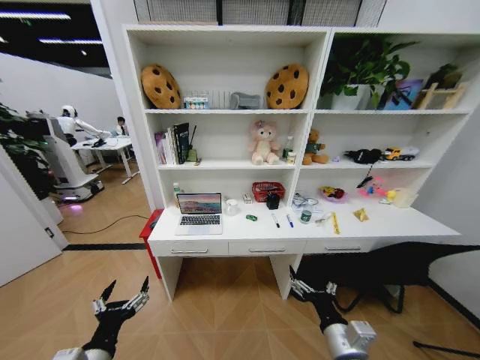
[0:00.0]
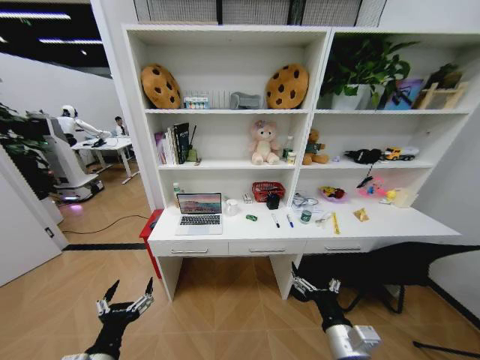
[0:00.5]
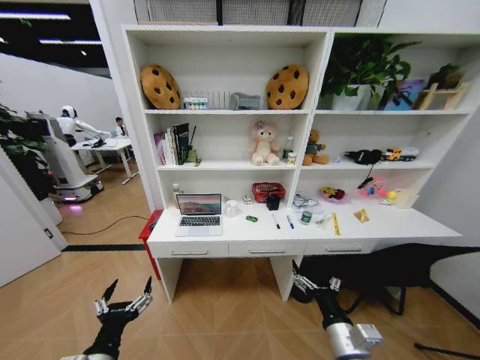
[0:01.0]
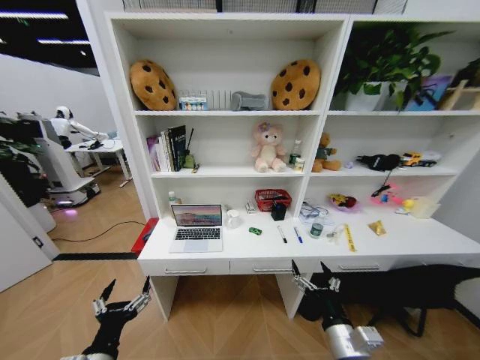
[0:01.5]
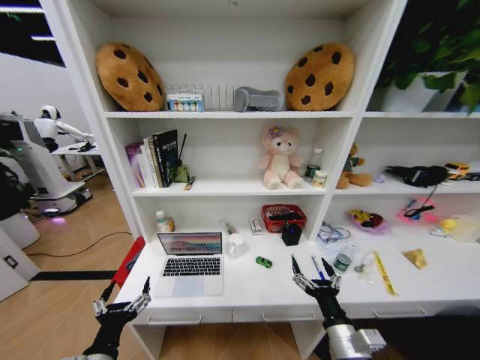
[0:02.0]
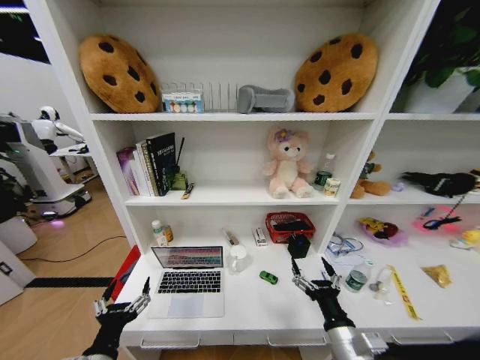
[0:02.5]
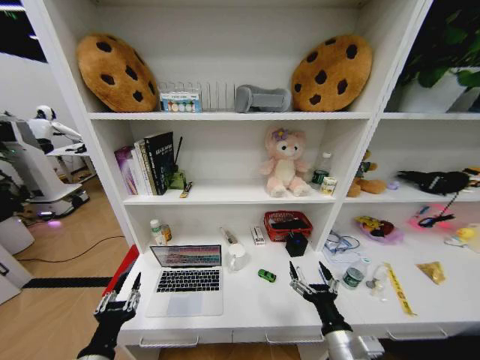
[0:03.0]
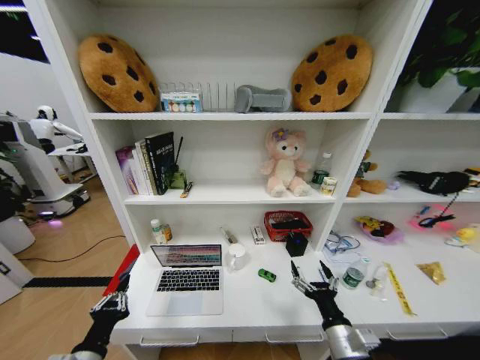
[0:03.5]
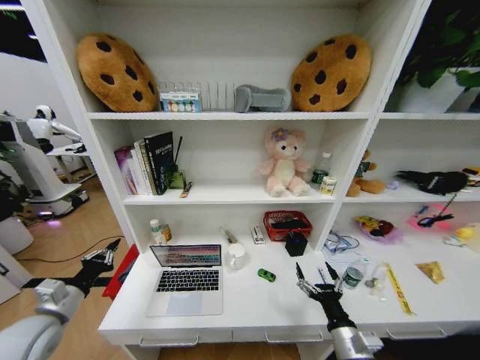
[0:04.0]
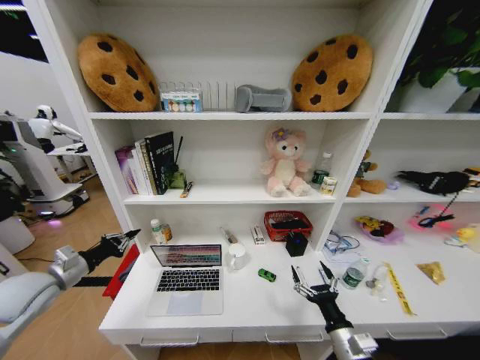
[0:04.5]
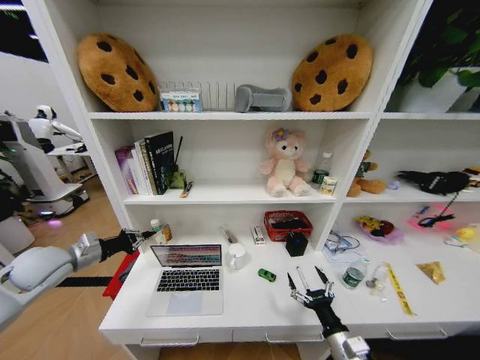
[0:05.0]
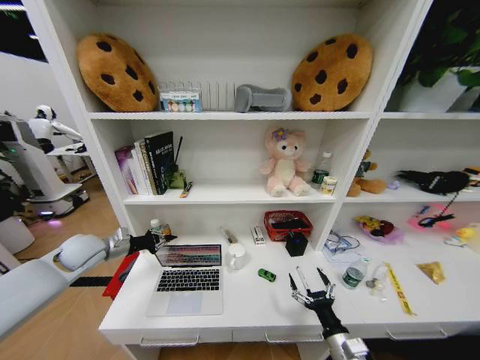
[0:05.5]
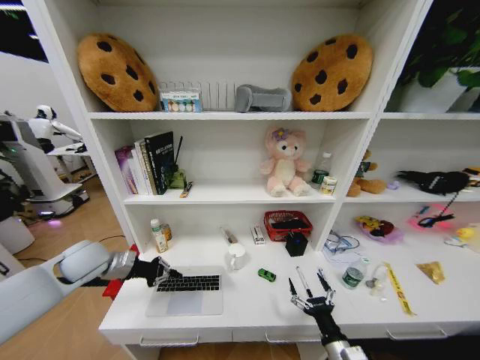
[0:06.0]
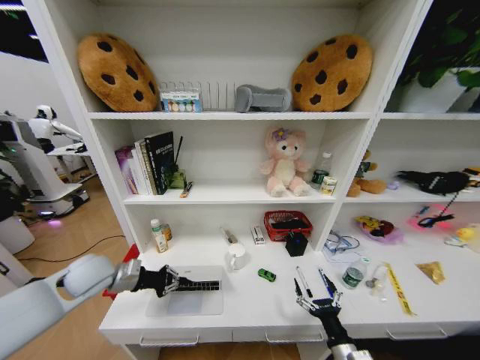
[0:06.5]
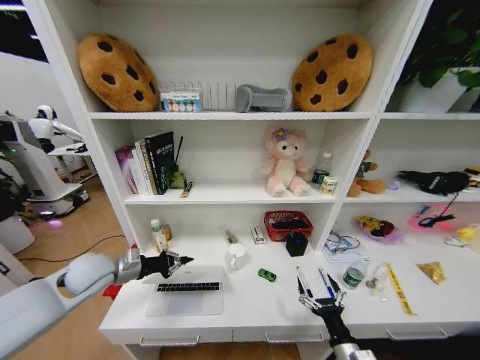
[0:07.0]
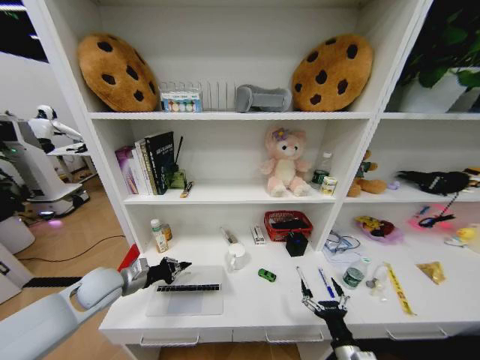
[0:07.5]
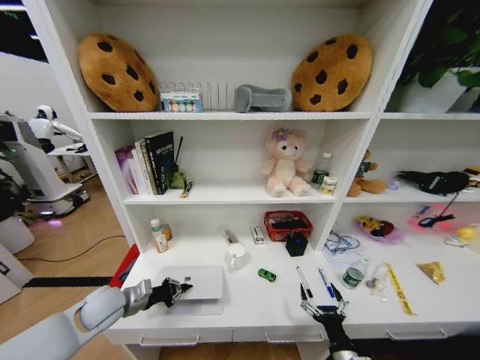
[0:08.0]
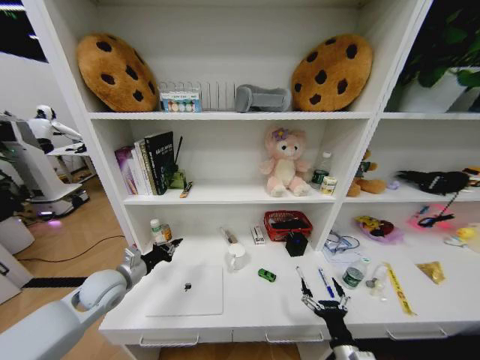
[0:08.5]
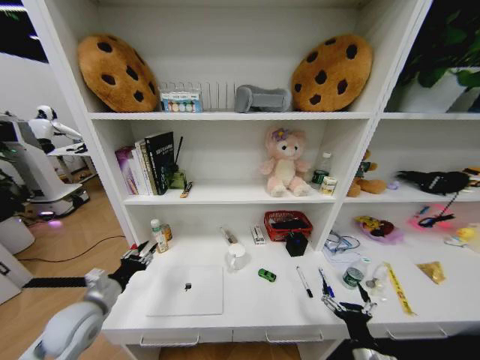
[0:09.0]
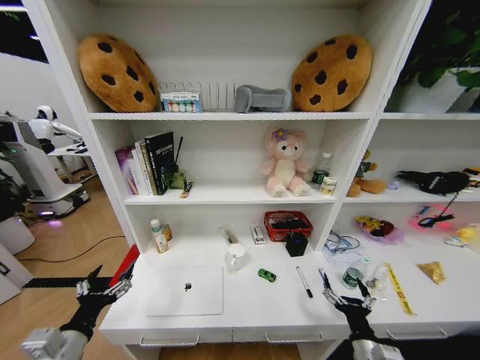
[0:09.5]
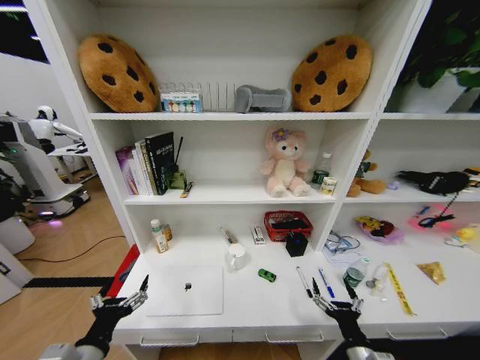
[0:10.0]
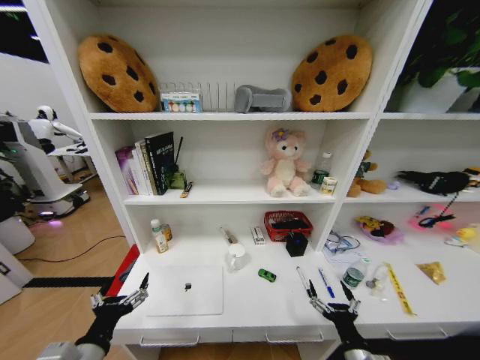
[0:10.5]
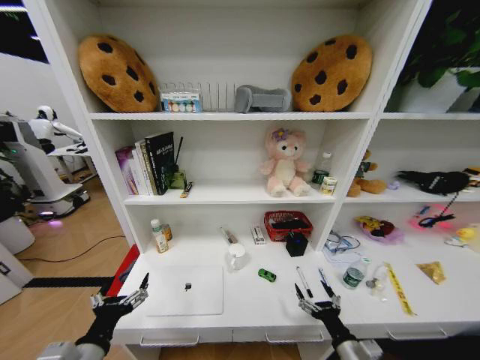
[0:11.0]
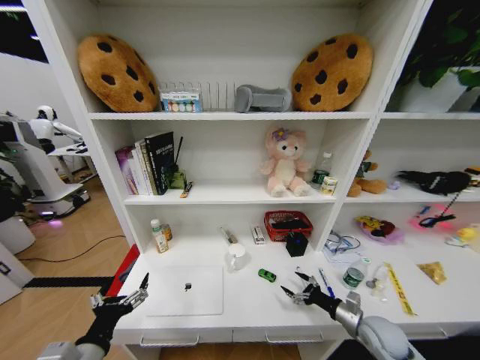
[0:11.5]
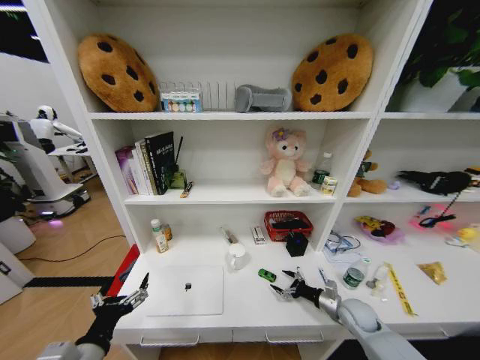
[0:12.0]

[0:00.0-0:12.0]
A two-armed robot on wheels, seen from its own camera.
Task of the whole recording: Organize the objects on the table.
0:02.0 to 0:04.0: The left gripper moves to the left and forward, approximately 20 cm, and closes.
0:04.0 to 0:06.0: The right gripper shifts roughly 5 cm downward. Meanwhile the left gripper travels forward and upward by approximately 15 cm.
0:06.0 to 0:08.0: The left gripper goes approximately 15 cm downward and backward.
0:08.0 to 0:10.0: The left gripper heads backward, covering some 20 cm, and opens.
0:10.0 to 0:12.0: The right gripper heads forward and to the right, covering some 20 cm.

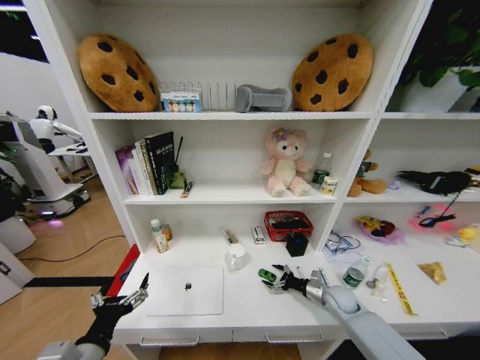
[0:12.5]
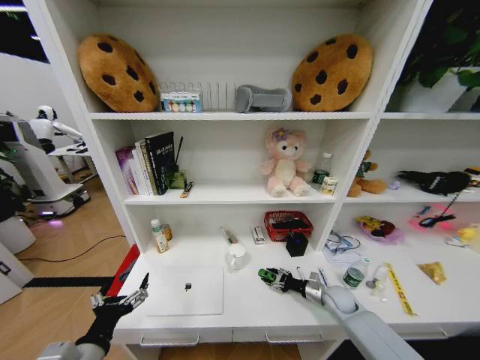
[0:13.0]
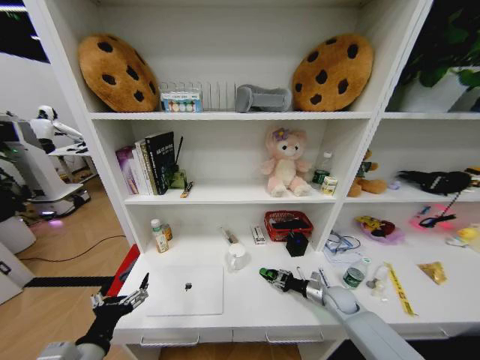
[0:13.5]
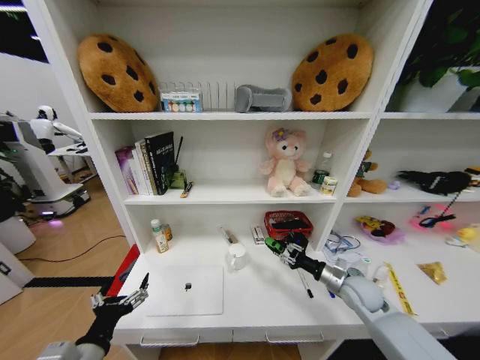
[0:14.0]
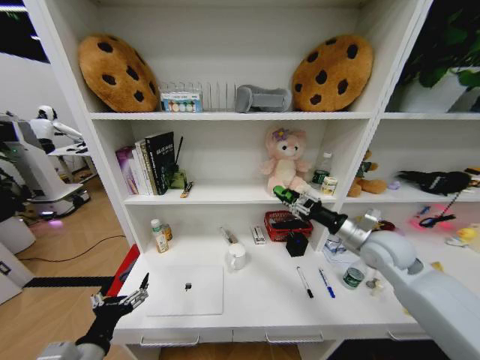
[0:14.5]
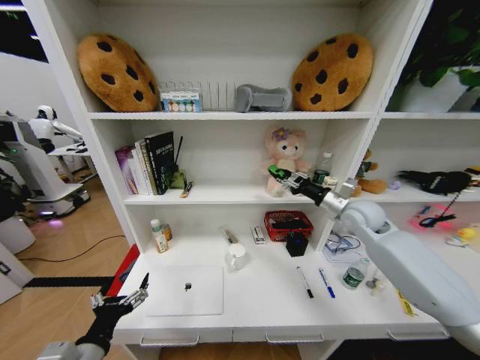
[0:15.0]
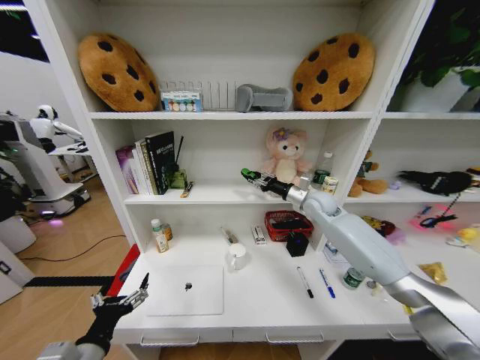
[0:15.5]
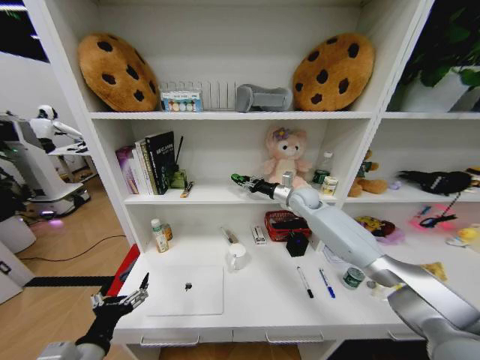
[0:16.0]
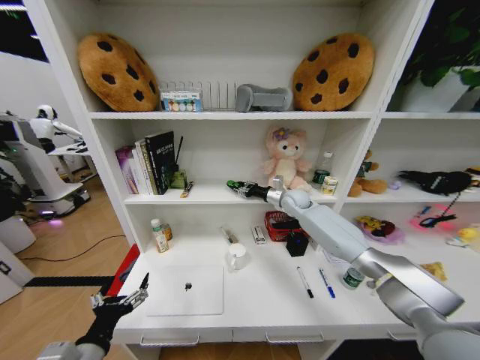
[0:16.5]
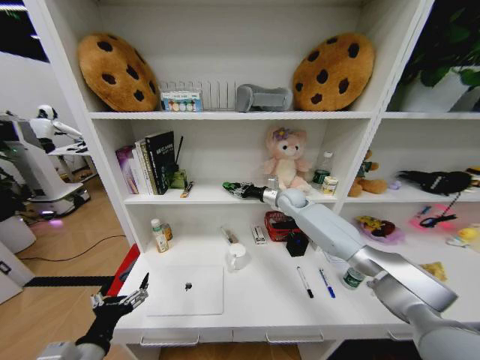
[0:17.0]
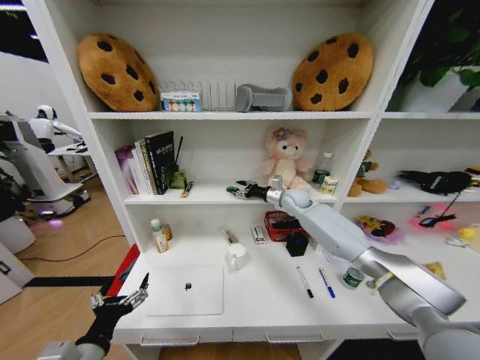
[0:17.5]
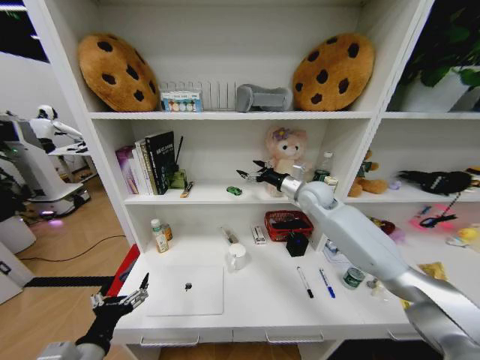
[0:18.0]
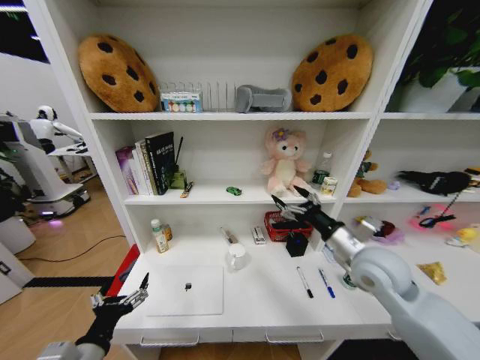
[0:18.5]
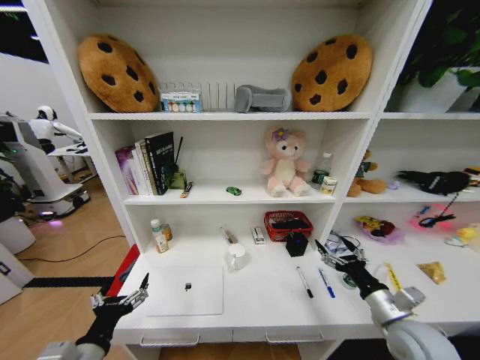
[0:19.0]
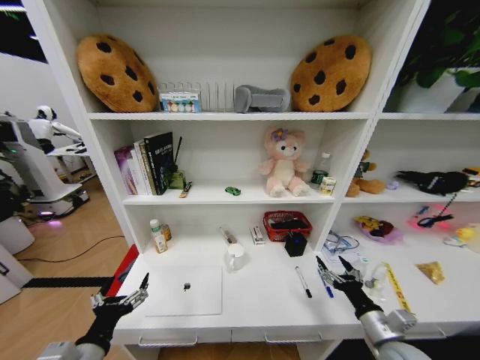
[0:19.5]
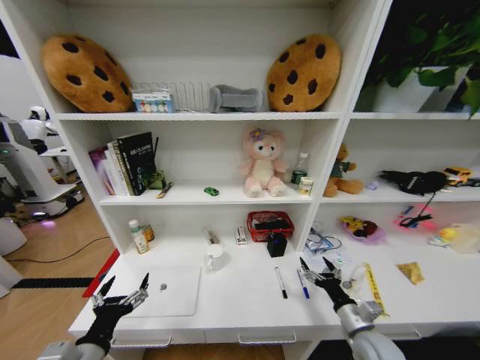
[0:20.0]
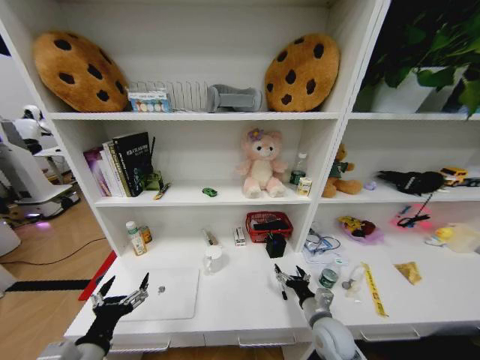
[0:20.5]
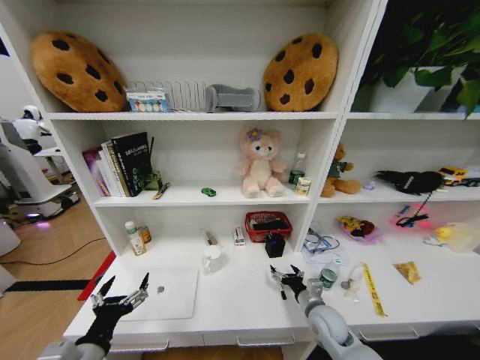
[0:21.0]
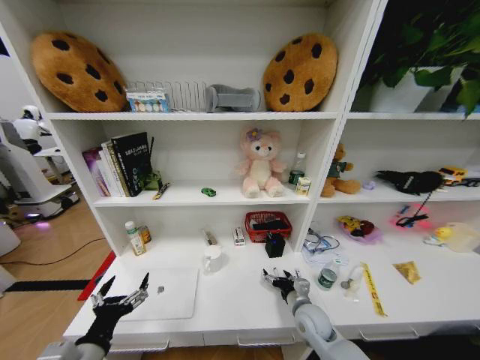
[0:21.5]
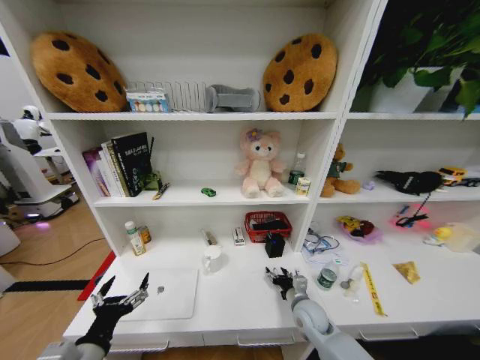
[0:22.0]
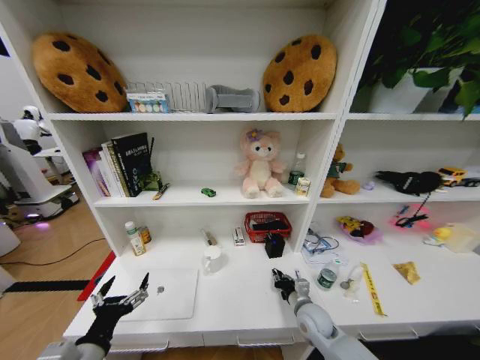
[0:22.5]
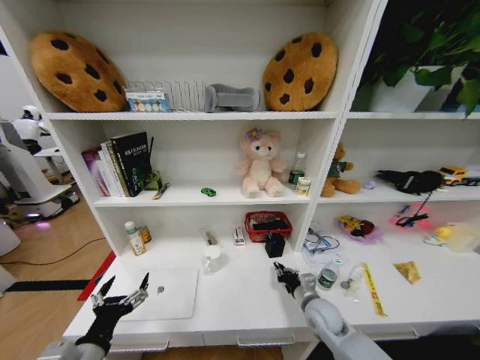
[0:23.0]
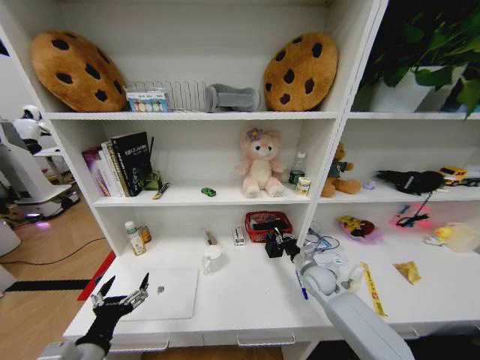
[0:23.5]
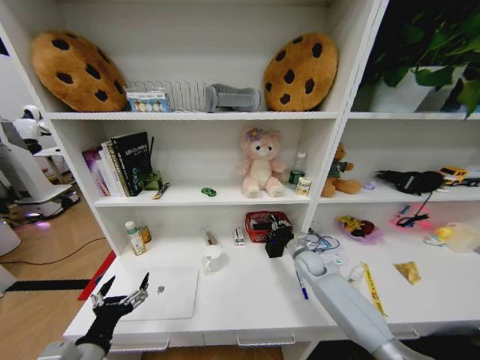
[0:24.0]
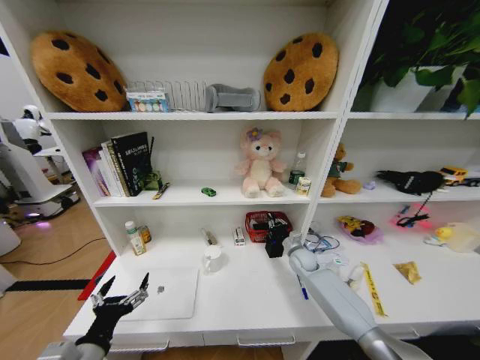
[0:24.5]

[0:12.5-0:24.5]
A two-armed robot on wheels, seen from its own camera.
Task of the whole recording: Organize the objects on the table.
0:12.5 to 0:14.5: The right gripper moves upward, approximately 30 cm, and closes its fingers.
0:14.5 to 0:16.5: The right gripper moves forward and to the left, some 25 cm.
0:16.5 to 0:18.5: The right gripper heads backward, covering about 30 cm, and opens up.
0:18.5 to 0:20.5: The right gripper heads downward, covering roughly 25 cm.
0:20.5 to 0:22.5: The right gripper ends up about 5 cm from where it was, and closes.
0:22.5 to 0:24.5: The right gripper is displaced forward by roughly 20 cm.

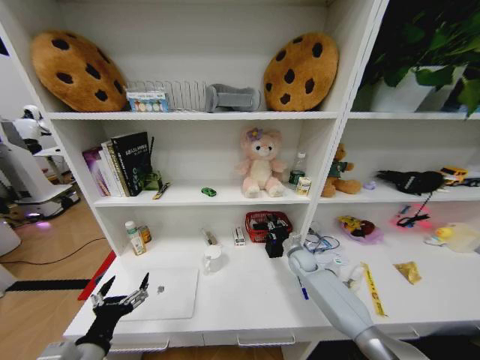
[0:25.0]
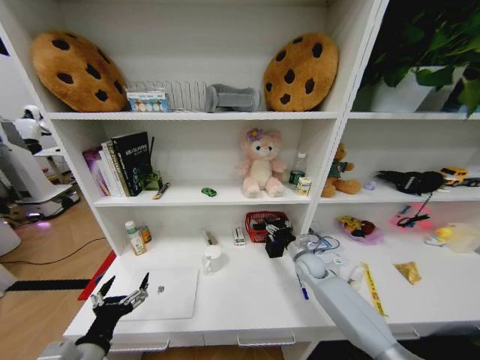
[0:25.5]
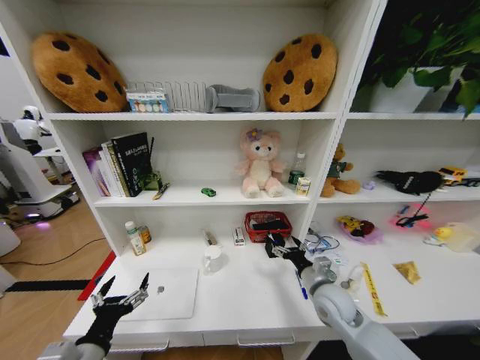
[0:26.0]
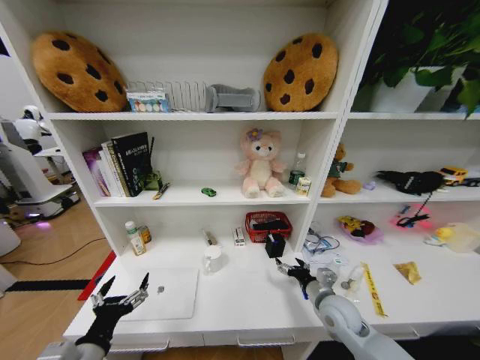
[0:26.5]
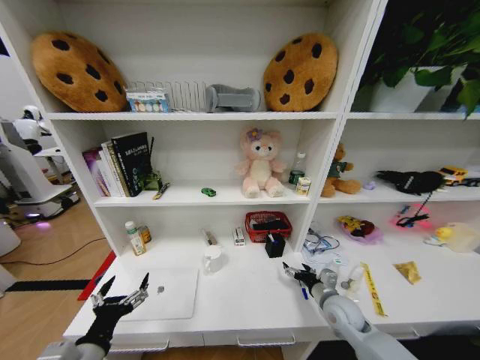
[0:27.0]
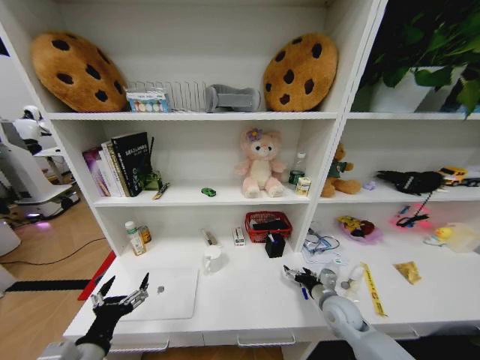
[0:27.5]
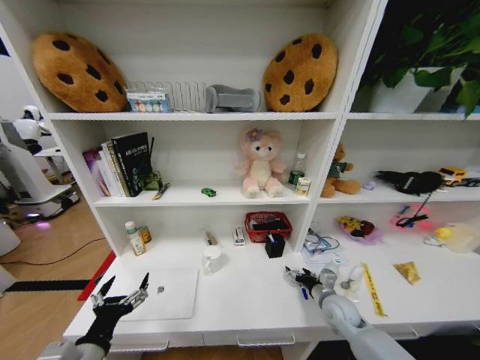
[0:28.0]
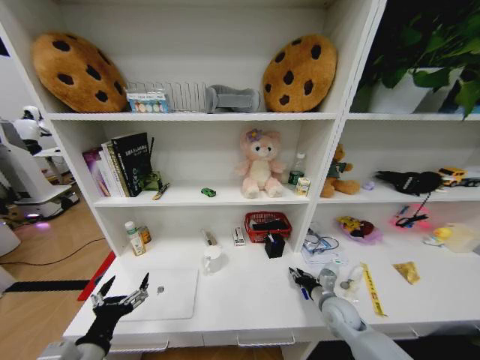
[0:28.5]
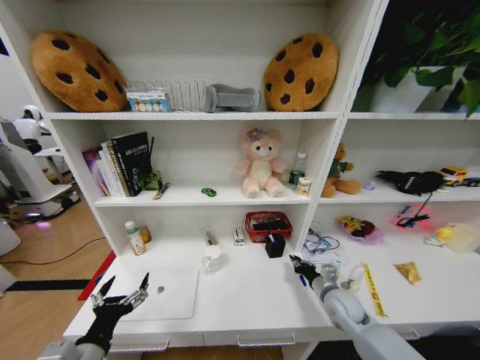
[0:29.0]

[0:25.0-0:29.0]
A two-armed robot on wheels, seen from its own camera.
Task of the whole recording: Organize the objects on the table.
0:25.0 to 0:27.0: The right gripper heads backward, covering approximately 20 cm, and opens up.
0:27.0 to 0:29.0: The right gripper closes up.
